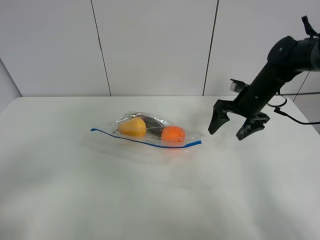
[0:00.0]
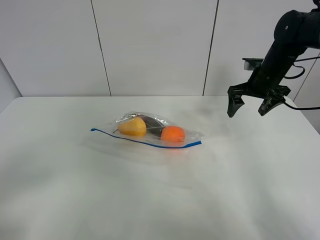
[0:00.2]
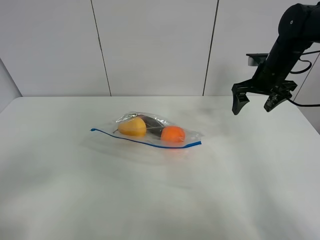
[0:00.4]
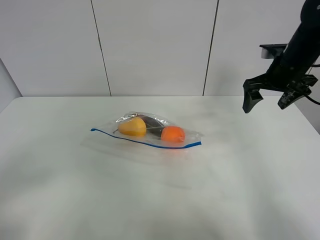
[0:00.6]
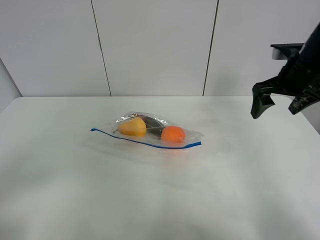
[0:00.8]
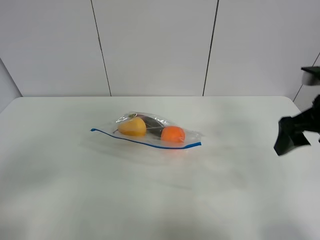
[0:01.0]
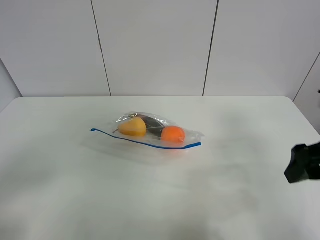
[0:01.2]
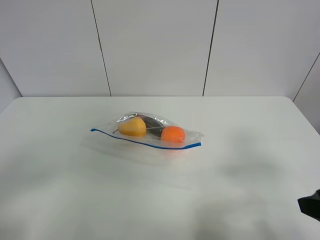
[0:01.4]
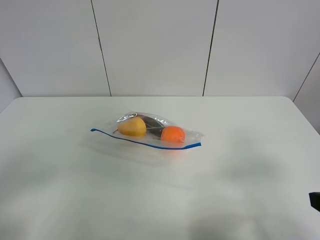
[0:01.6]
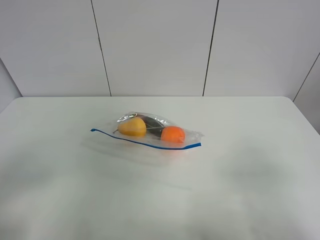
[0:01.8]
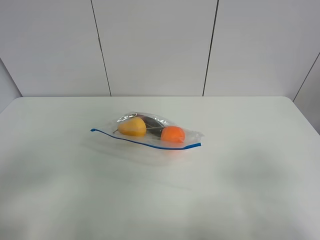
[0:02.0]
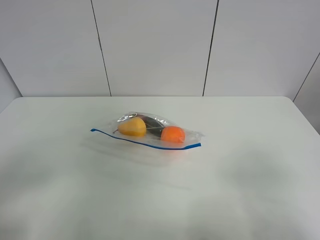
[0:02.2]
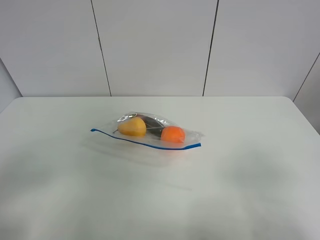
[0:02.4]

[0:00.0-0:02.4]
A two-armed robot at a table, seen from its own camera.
0:00.0 to 0:01.2: The right gripper shifts approximately 25 cm backward.
0:01.2 to 0:02.4: The right gripper is displaced backward by approximately 15 cm.

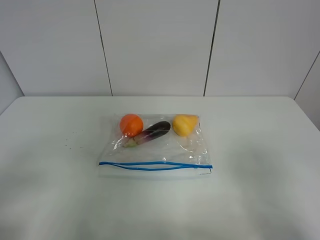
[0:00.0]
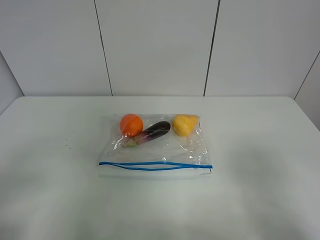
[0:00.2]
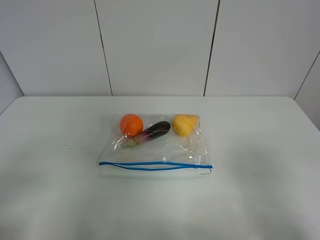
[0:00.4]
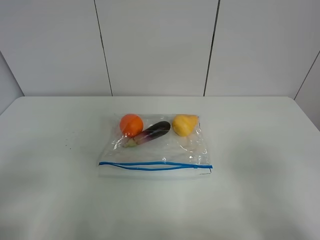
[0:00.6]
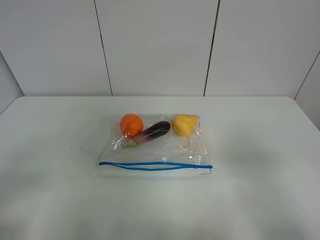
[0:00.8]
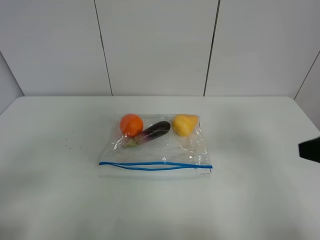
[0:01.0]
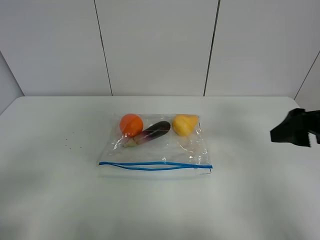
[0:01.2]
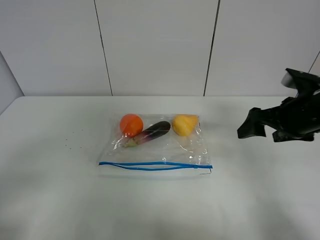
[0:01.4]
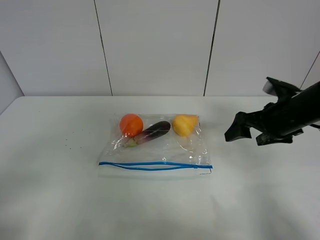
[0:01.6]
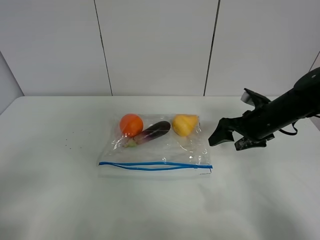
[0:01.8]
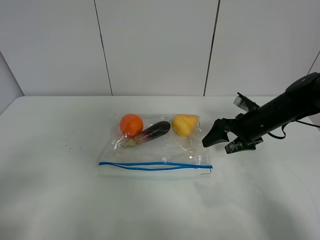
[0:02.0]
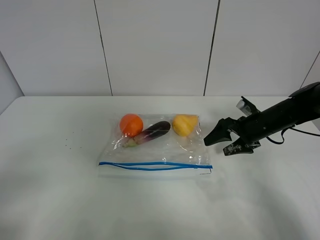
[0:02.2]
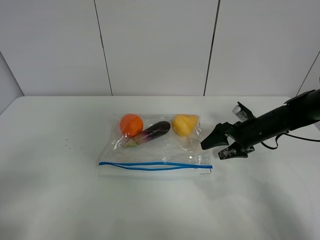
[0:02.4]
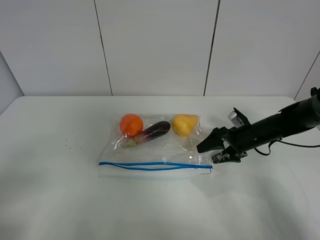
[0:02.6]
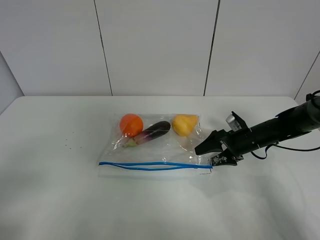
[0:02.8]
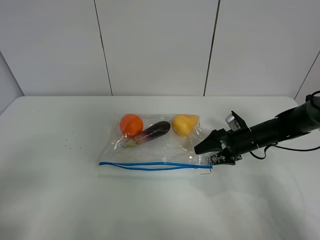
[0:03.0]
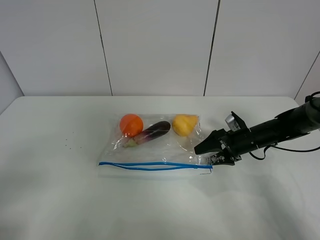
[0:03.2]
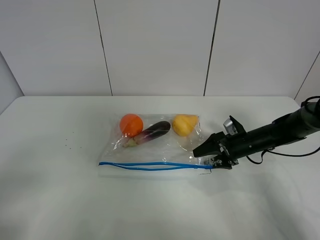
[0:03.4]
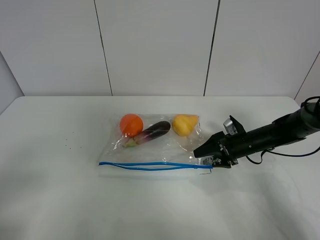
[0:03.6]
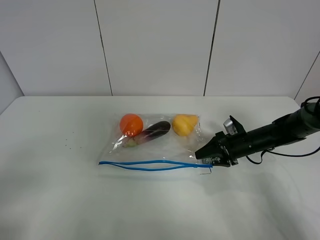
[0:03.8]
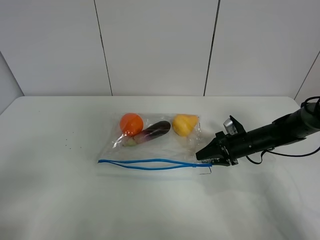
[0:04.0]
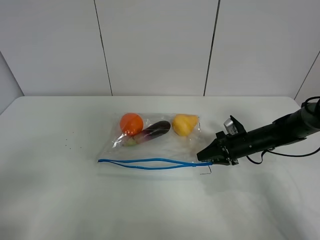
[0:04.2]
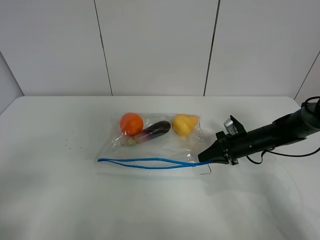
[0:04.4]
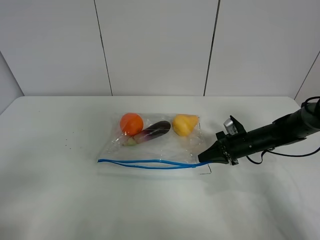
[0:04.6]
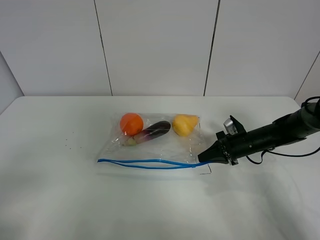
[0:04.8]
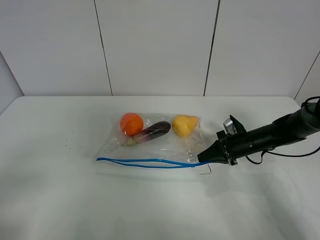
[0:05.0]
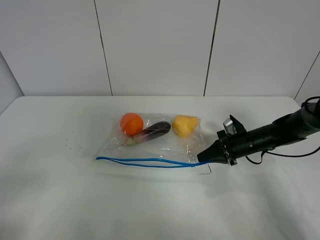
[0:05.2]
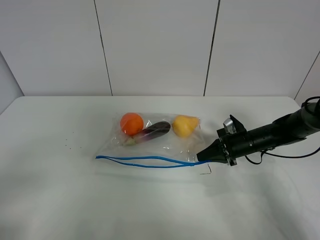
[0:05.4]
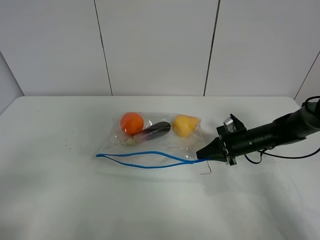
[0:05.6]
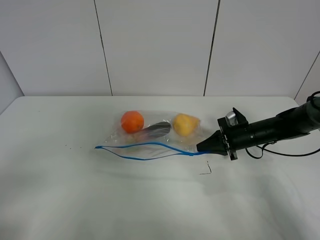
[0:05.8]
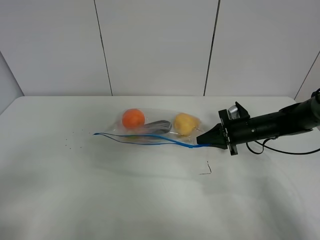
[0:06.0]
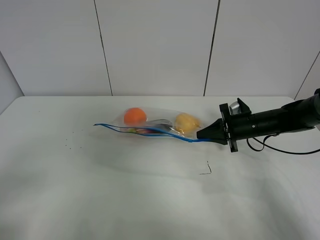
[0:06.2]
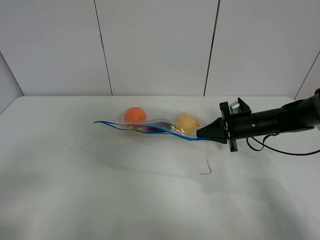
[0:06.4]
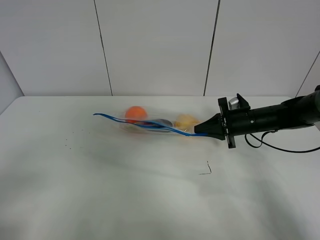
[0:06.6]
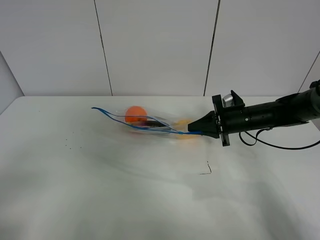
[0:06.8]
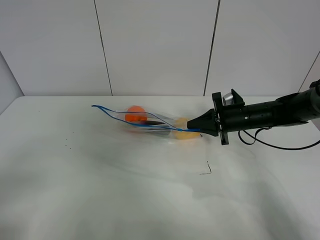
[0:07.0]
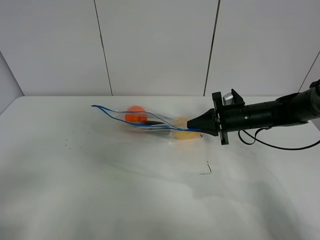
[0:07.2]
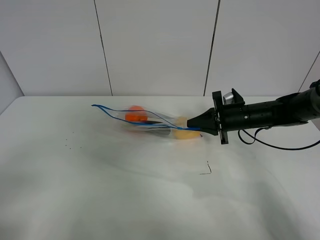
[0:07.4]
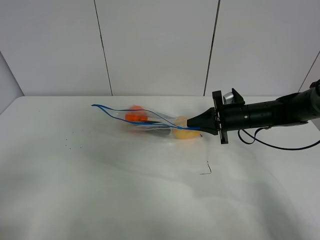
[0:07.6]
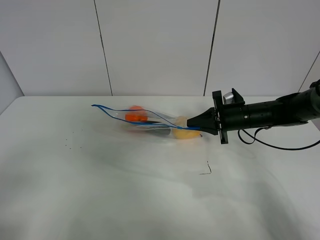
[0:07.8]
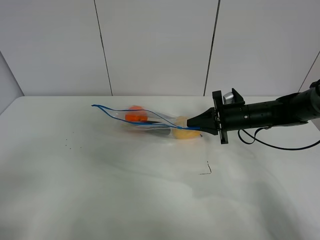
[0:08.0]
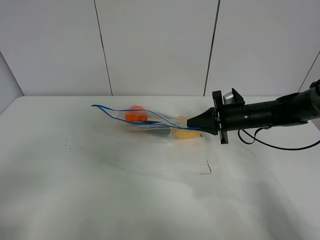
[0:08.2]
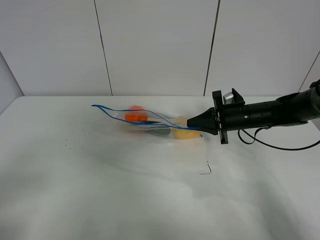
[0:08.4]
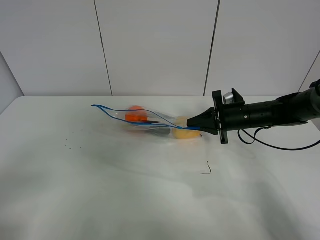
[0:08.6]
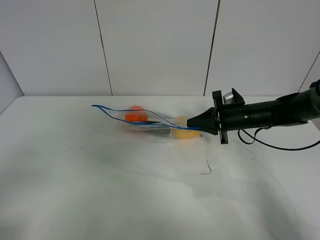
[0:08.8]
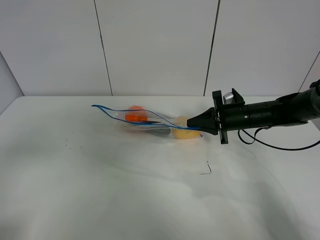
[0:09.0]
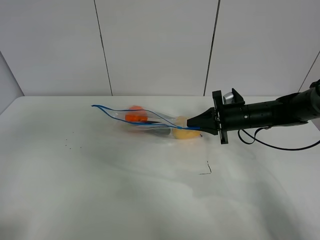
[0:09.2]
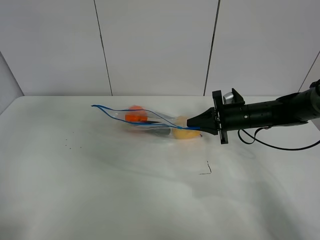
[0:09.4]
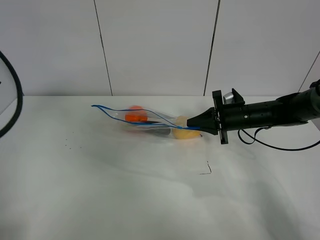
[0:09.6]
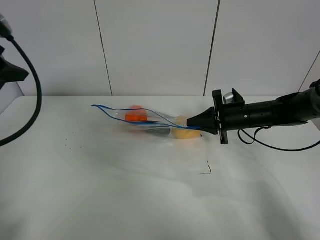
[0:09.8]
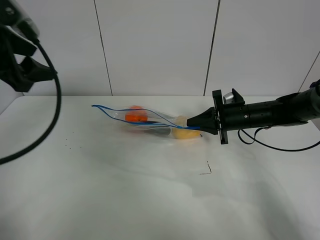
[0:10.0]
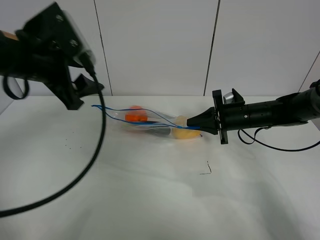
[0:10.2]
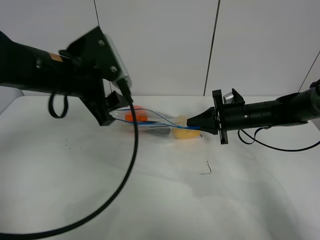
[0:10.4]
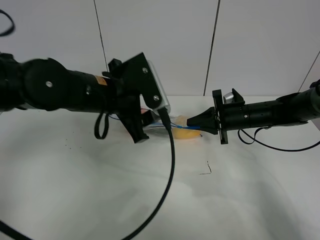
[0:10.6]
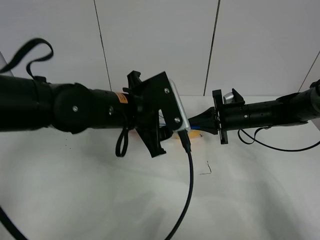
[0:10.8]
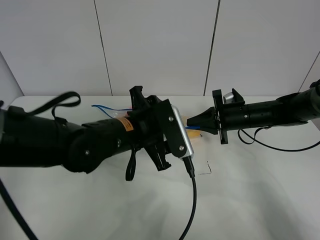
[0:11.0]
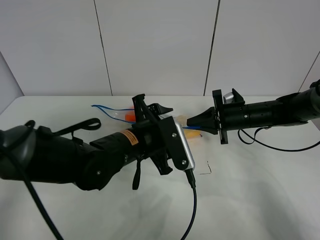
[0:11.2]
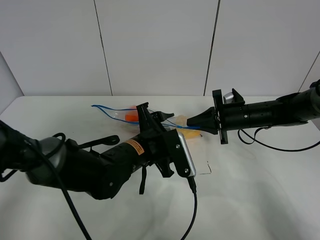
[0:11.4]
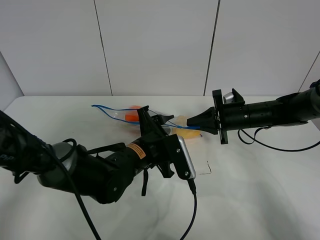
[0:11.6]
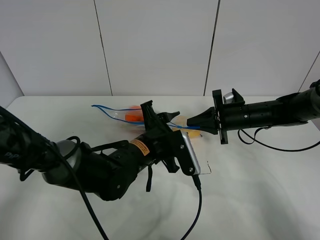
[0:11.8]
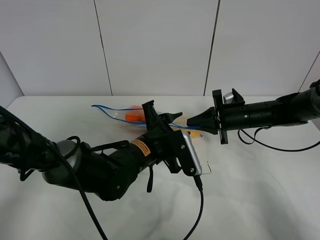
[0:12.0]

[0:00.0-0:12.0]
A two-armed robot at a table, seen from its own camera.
Step, 0:00.0 to 0:04.4: Grasp the fruit bag with right gripper.
Step, 0:04.6 to 0:07.2: Lift the fruit bag with your right gripper.
0:00.0 to 0:01.6: The right gripper goes approximately 30 cm forward.
0:01.6 to 0:03.0: The right gripper is displaced downward and forward by approximately 15 cm.
0:03.0 to 0:04.4: The right gripper closes.
0:04.4 to 0:06.0: The grippers stay close to where they were, moving slightly.
0:06.0 to 0:07.6: The grippers stay close to where they were, moving slightly.
0:09.0 to 0:10.4: The left gripper heads forward and to the right, covering approximately 30 cm.
0:10.4 to 0:12.0: The left gripper travels downward and to the right by some 20 cm.

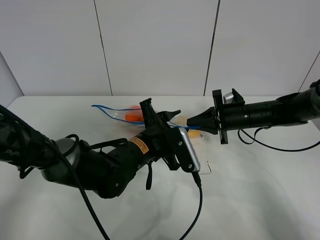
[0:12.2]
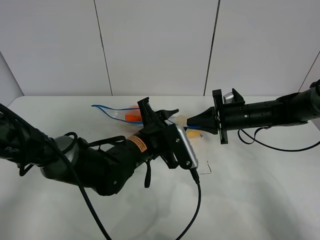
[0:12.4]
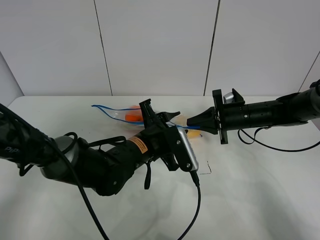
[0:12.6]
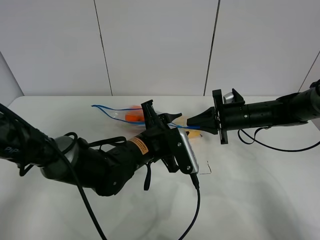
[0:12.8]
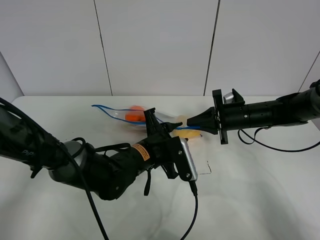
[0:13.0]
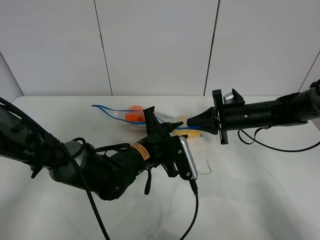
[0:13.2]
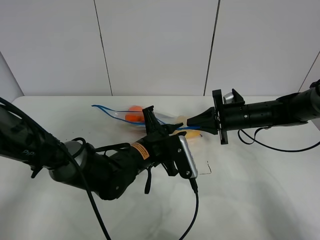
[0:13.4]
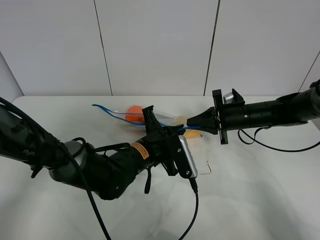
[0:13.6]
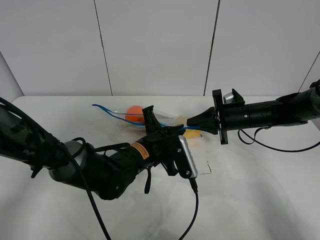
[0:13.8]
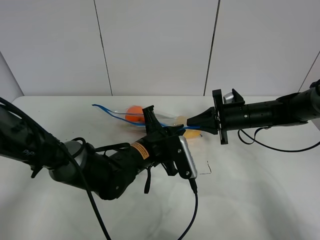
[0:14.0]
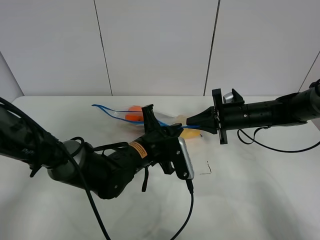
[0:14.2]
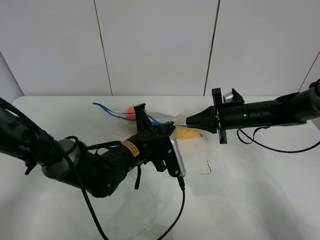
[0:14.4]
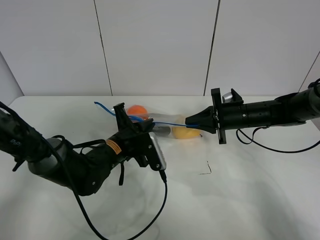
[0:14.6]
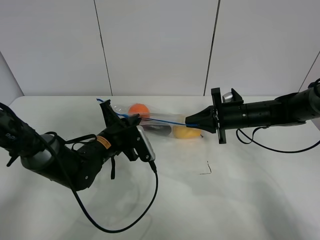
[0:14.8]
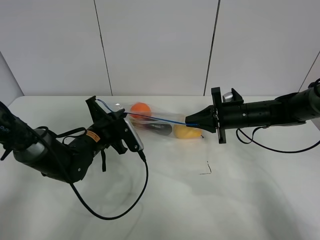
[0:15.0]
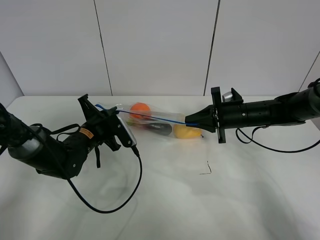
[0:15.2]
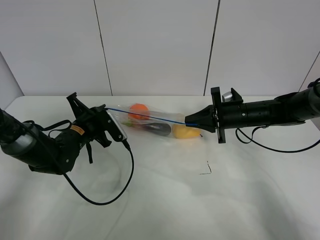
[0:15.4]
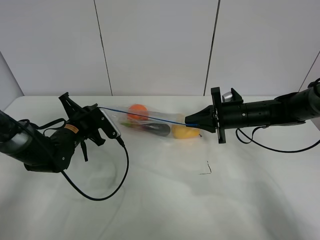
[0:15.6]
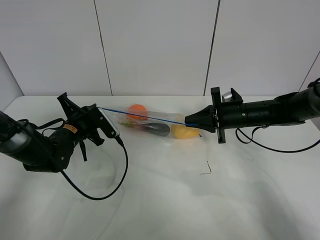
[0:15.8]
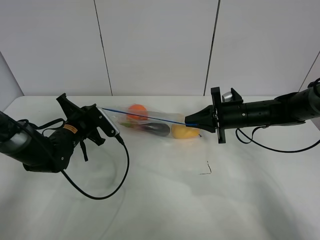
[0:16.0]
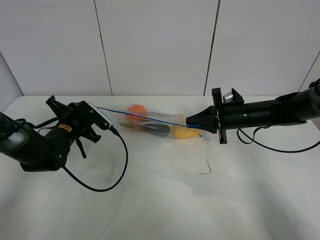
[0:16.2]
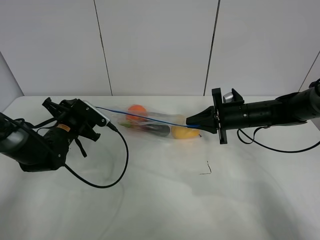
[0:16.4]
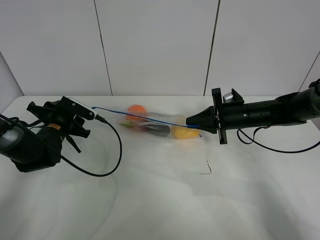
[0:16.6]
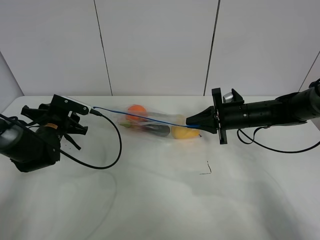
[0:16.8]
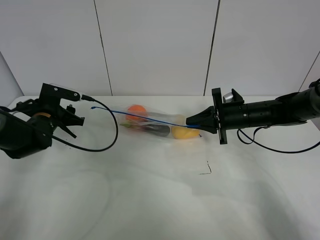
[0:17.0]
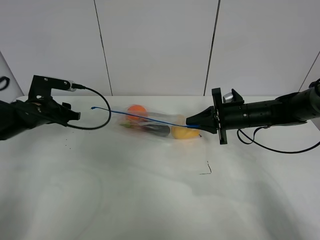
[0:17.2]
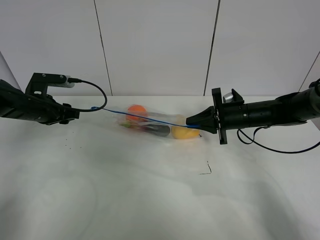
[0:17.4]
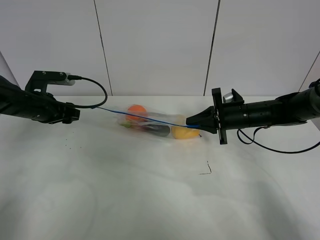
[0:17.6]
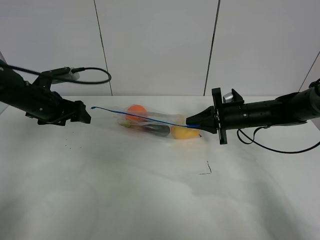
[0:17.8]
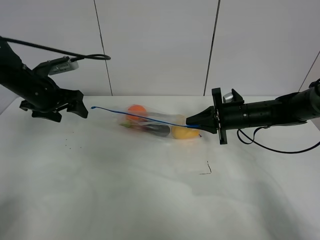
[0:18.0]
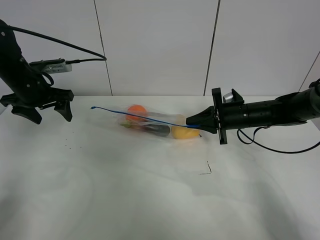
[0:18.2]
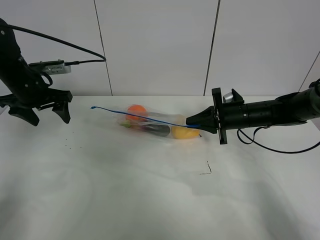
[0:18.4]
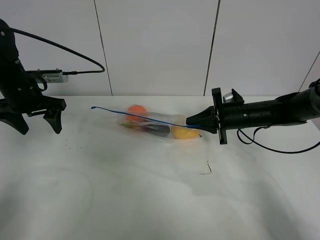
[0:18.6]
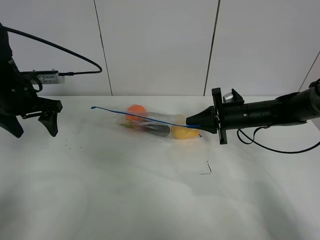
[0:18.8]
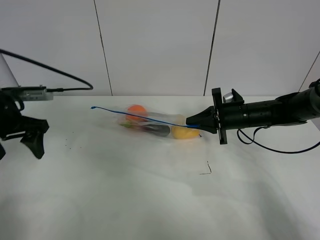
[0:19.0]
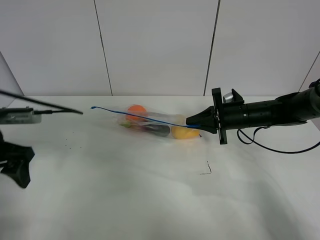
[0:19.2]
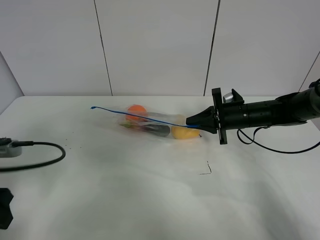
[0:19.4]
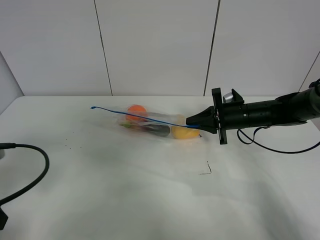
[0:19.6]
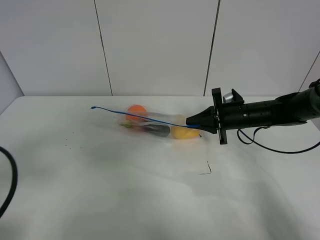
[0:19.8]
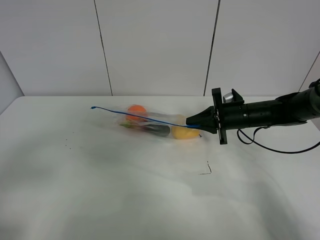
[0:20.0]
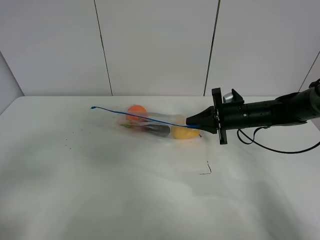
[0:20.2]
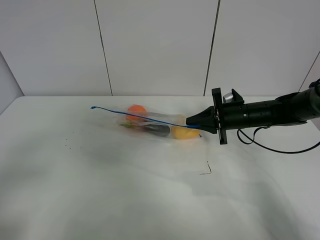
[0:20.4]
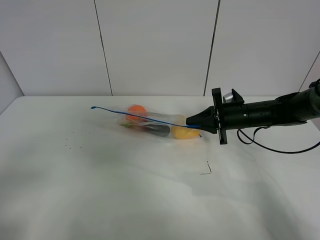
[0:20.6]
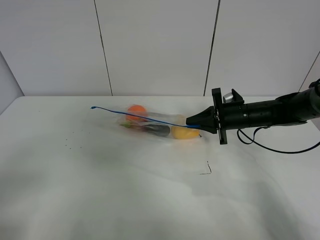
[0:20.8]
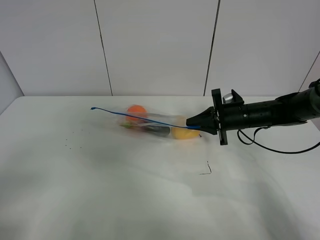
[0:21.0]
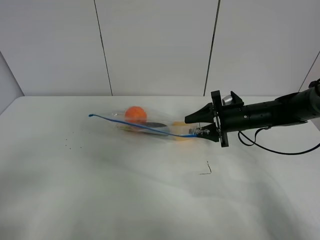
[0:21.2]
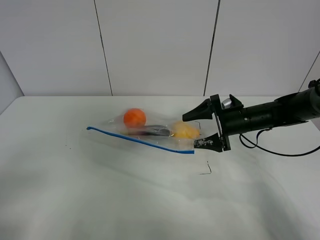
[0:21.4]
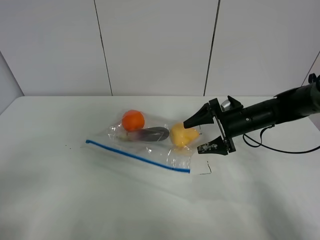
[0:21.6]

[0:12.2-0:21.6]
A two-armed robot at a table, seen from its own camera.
Step, 0:12.2 to 0:16.2: Pull the fruit bag with left gripper.
0:12.2 to 0:13.8: The left gripper closes.
0:13.8 to 0:15.4: The left gripper shifts roughly 20 cm to the left and forward.
0:15.4 to 0:17.0: The left gripper is displaced to the left by some 10 cm, and opens up.
0:17.0 to 0:18.4: The left gripper travels upward by approximately 10 cm.
0:18.4 to 0:20.0: The left gripper heads backward, covering approximately 30 cm.
0:20.0 to 0:21.6: The left gripper shifts some 5 cm backward; the right gripper opens.
